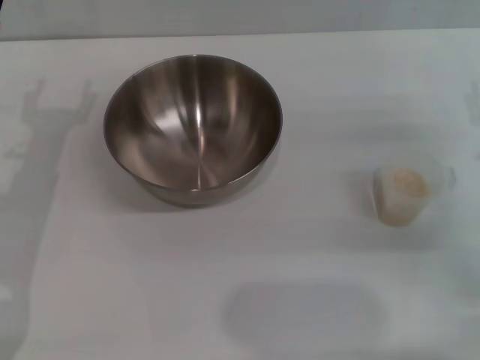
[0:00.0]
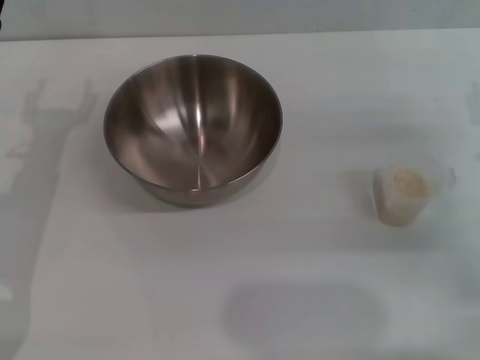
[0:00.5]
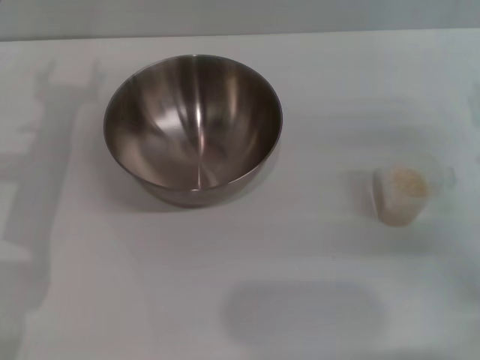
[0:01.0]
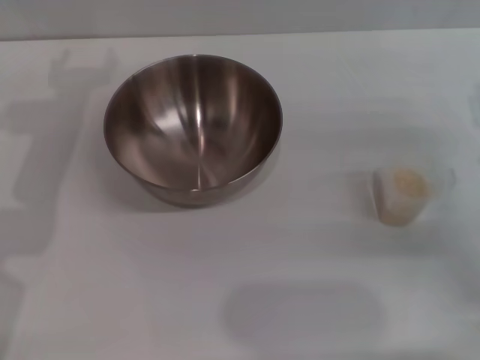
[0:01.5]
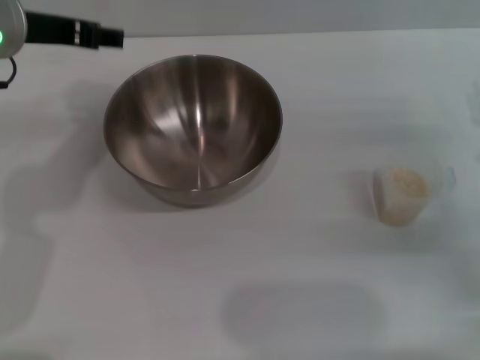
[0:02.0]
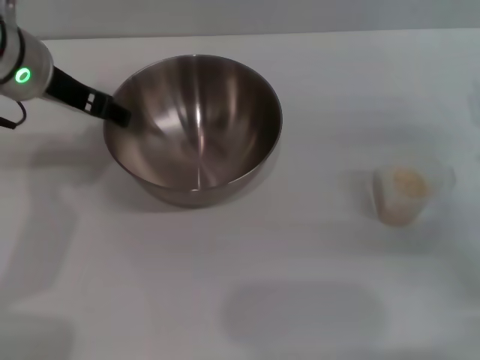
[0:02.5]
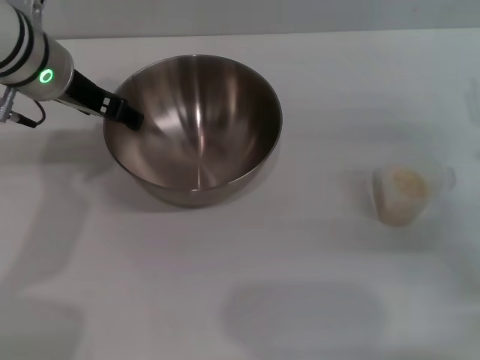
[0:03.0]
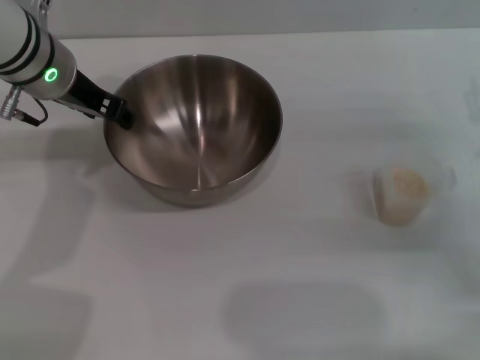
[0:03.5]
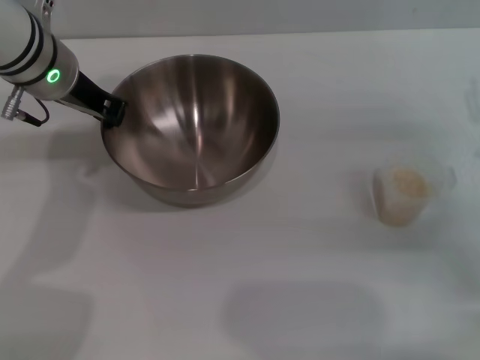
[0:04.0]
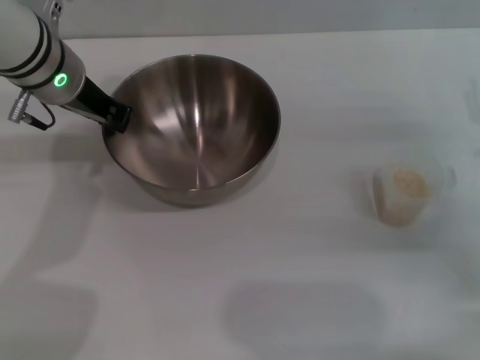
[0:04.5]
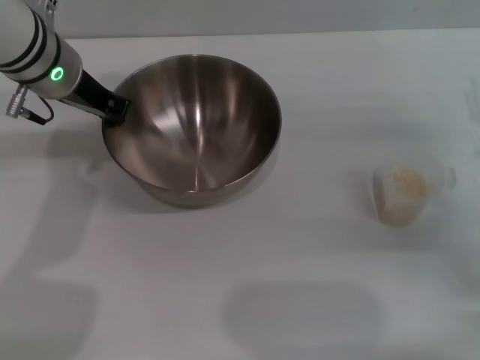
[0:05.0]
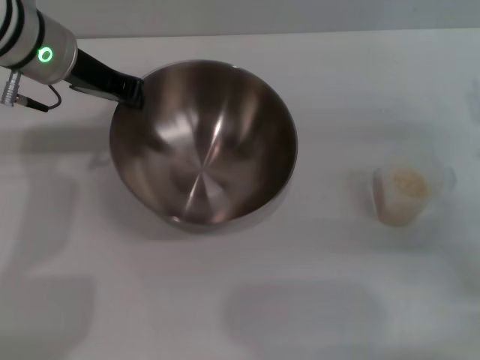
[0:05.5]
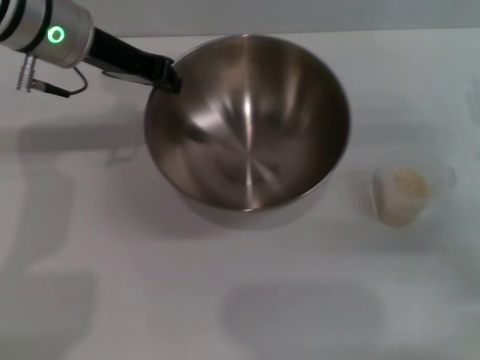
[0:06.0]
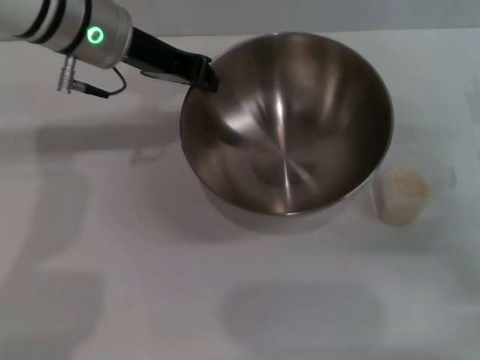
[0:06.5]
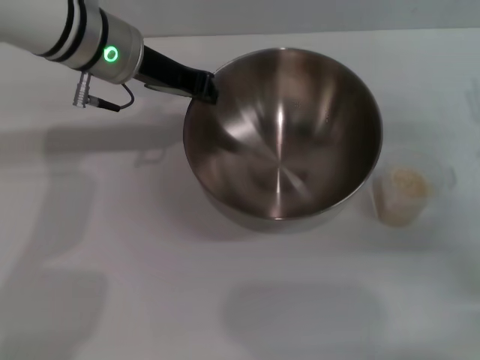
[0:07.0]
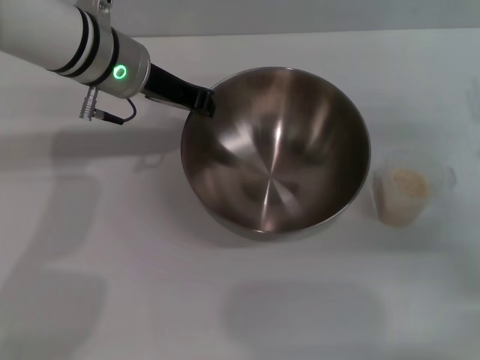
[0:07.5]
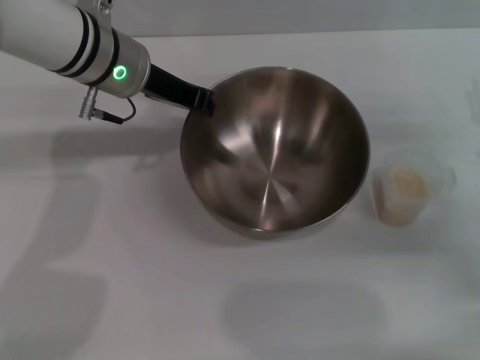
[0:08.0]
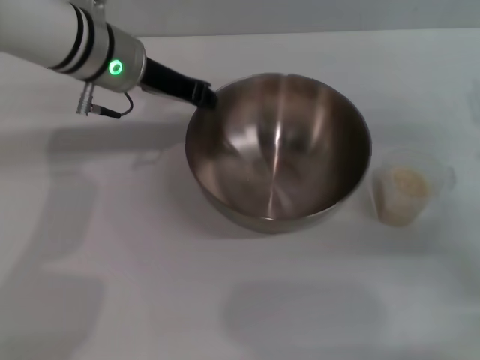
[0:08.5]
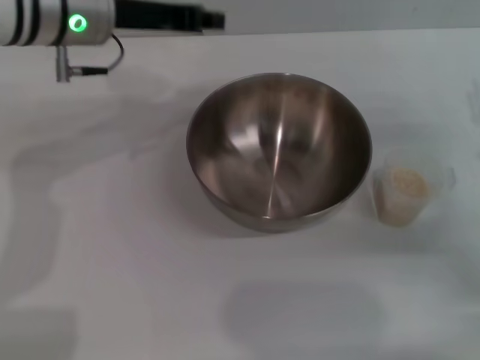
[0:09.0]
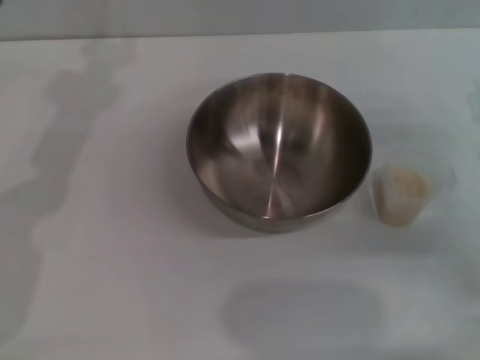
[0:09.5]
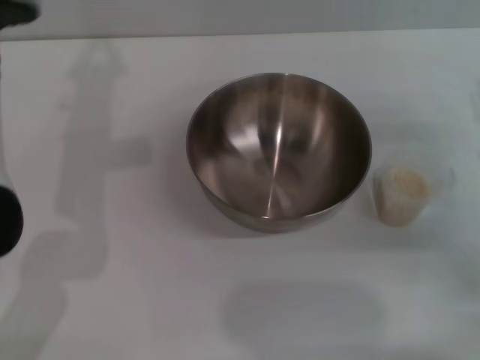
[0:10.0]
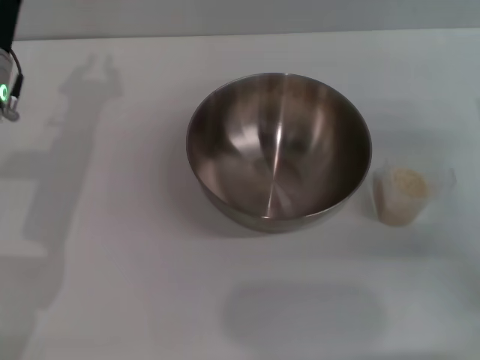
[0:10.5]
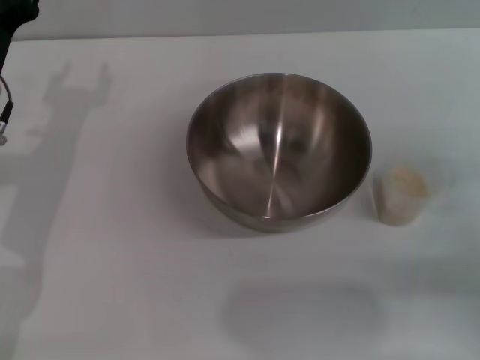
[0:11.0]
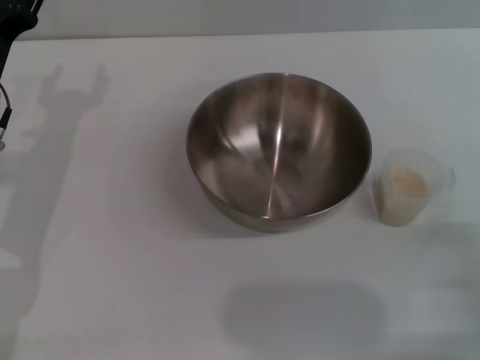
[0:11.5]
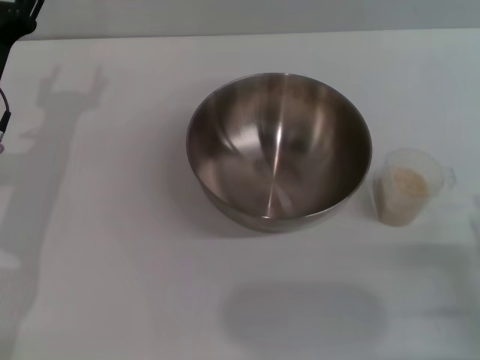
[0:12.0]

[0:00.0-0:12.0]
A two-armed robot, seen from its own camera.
Task of the whole recording: Place the bowl in the middle of the table with one hand and pour the rice from the grain cup into it with the other hand.
Step, 0:00.0 to 0:06.0: Pick up the bowl with the left gripper.
Step, 0:06.5 to 0:08.5: Place the bowl in the center of view with the left gripper.
0:00.0 to 0:02.0: The left gripper moves upward, forward and to the right, some 15 cm.
0:02.0 to 0:04.0: The left gripper changes place by some 5 cm, and closes.
0:06.0 to 0:08.0: The left gripper changes place by approximately 5 cm.
0:08.0 to 0:10.0: The left gripper heads to the left and backward, covering some 10 cm.
0:10.0 to 0:12.0: The right gripper moves backward and downward, approximately 20 cm; the left gripper shifts roughly 10 cm downward and to the left, and opens.

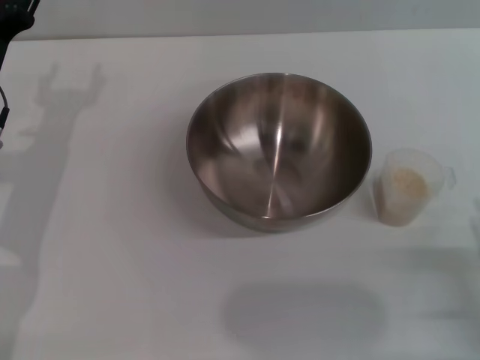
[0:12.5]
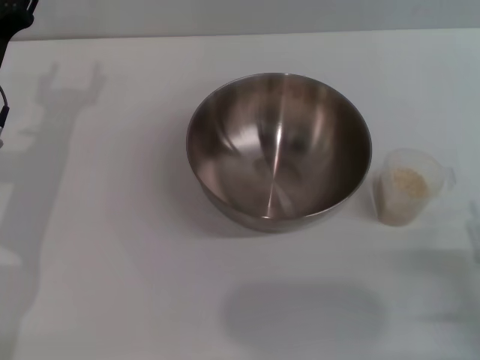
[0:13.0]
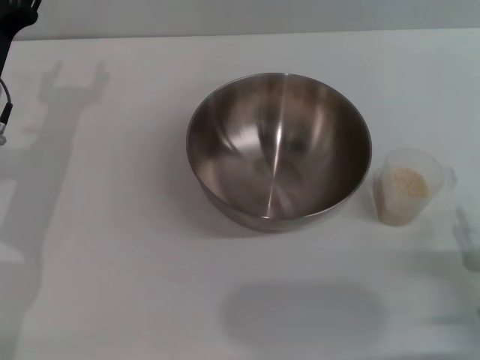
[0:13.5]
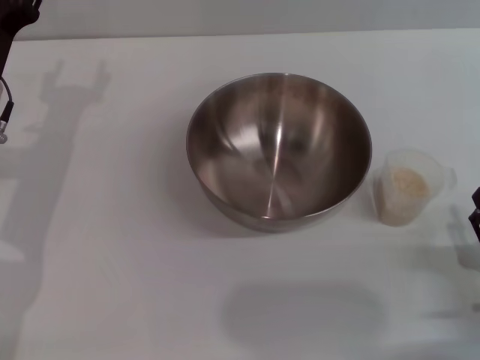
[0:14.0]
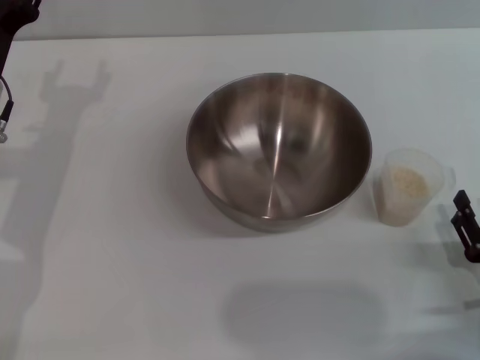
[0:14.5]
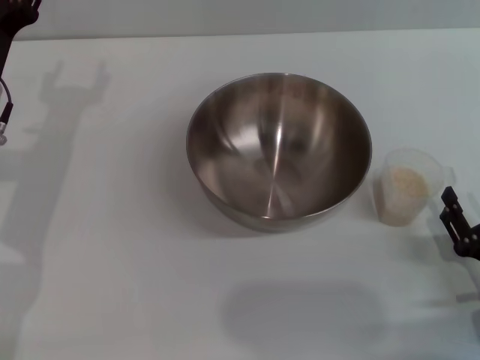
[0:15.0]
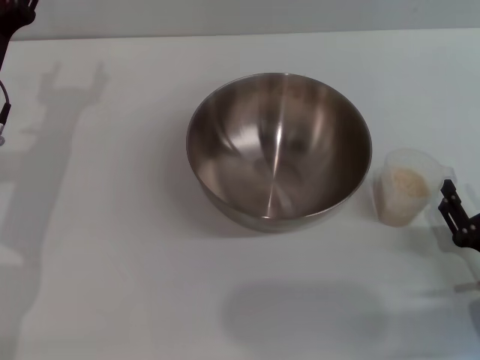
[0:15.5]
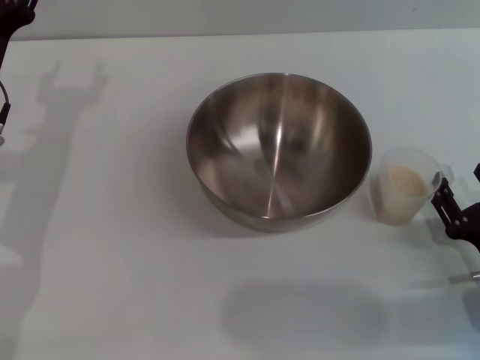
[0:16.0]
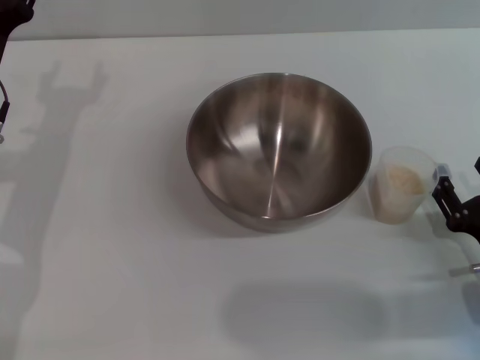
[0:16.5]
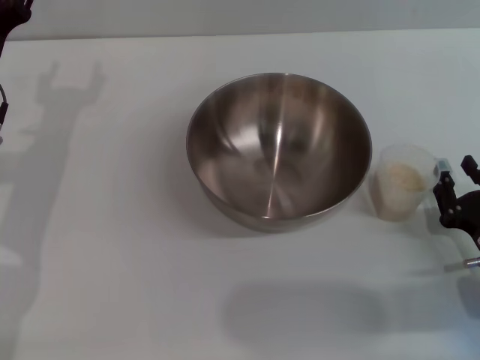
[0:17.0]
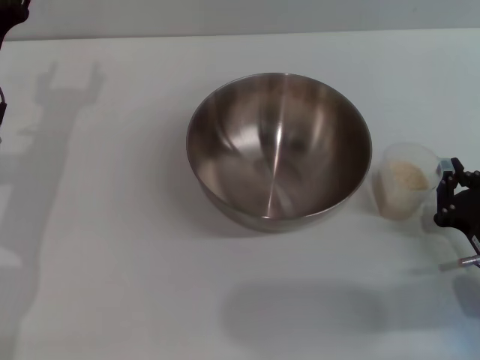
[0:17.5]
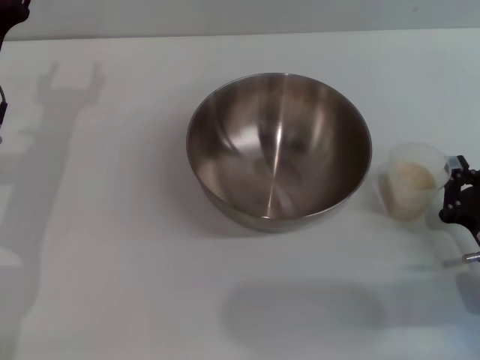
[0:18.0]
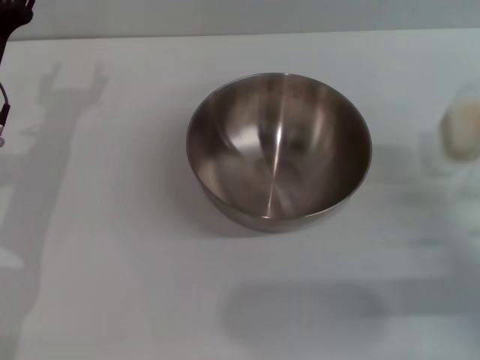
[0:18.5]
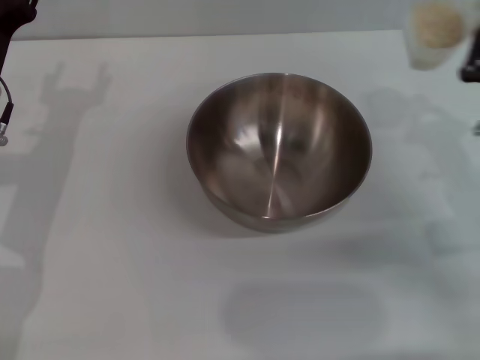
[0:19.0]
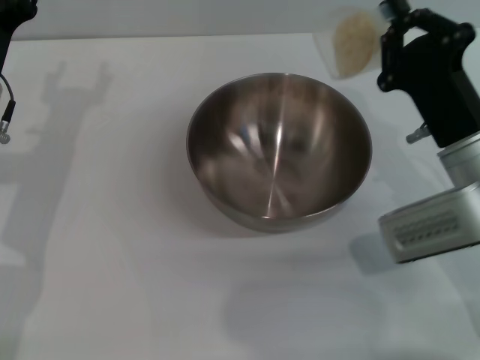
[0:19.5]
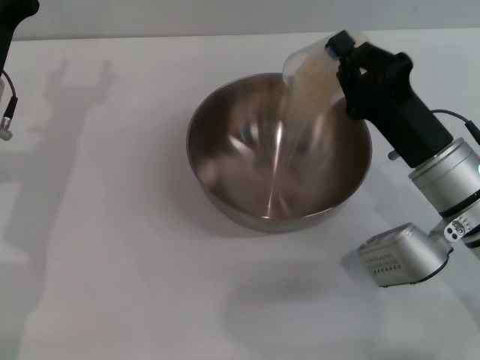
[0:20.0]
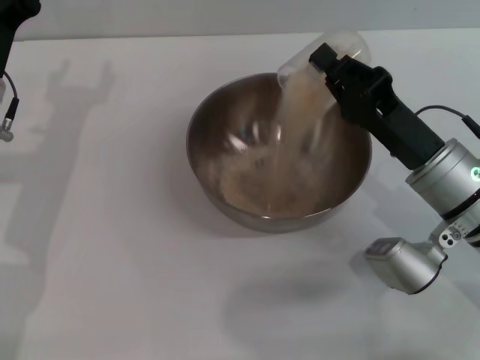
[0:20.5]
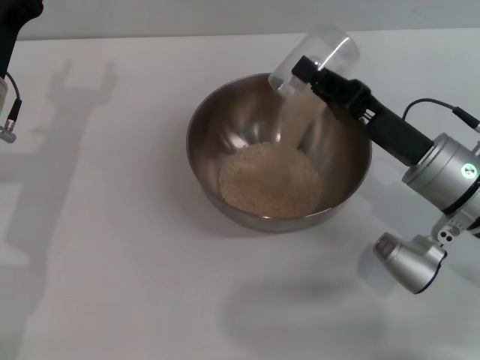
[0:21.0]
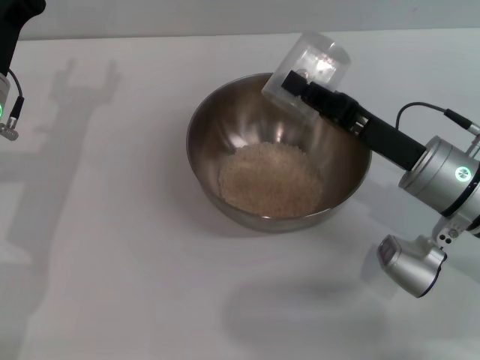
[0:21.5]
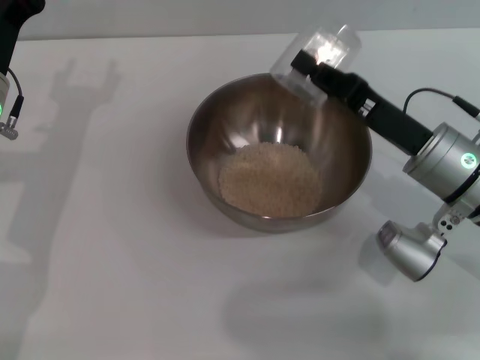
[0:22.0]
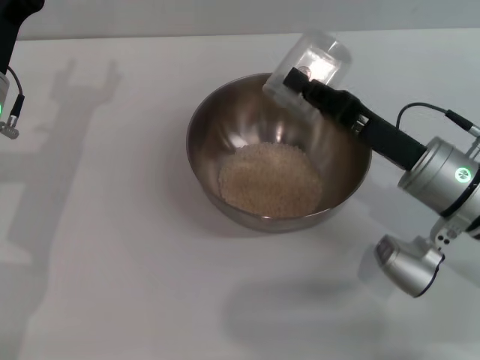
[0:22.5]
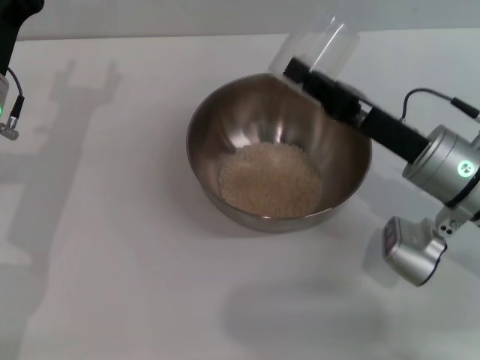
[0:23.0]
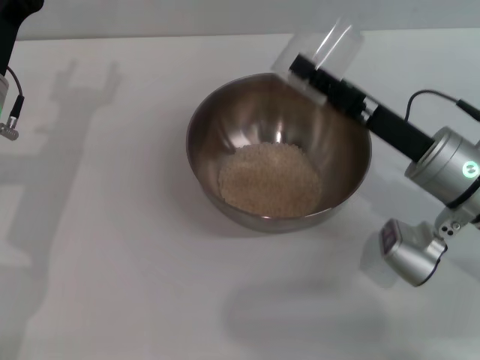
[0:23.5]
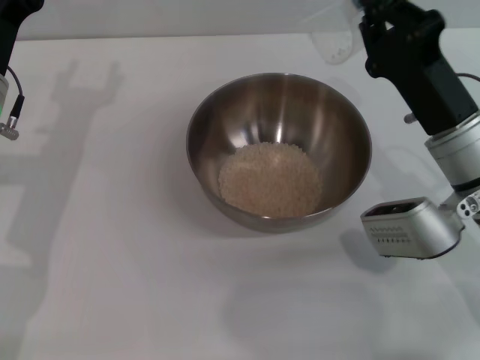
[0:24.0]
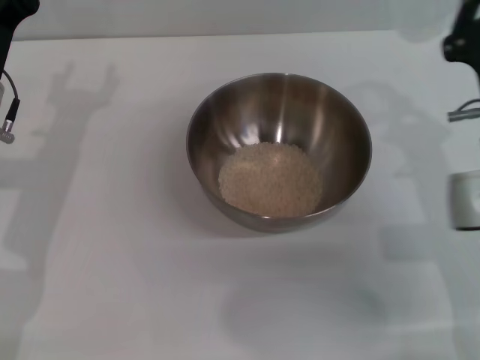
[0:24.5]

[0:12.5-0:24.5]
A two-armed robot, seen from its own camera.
Task of the whole recording: Place the bowl in the middle of the table with one hand and pour the rice from the grain cup into it with the other hand.
Step, 0:12.5 to 0:18.5: Pick up the cup with rice in it with the right gripper.
Step, 0:19.0 to 0:23.5: Pour the rice from the cup into the bowl with the right gripper.
0:12.5 to 0:14.5: The grippers move only a little.
0:14.5 to 0:16.5: The grippers make only small movements.
0:16.5 to 0:18.5: The right gripper closes its fingers.
0:18.5 to 0:20.5: The right gripper is displaced to the left and forward by some 15 cm.
0:20.5 to 0:22.5: The grippers stay close to where they were, moving slightly.

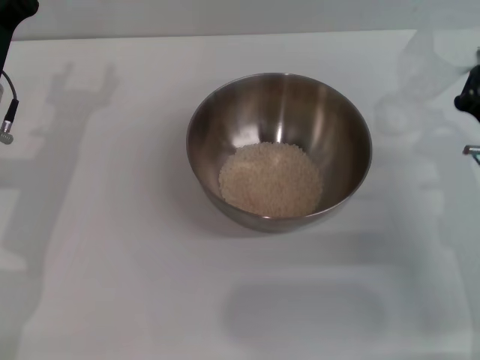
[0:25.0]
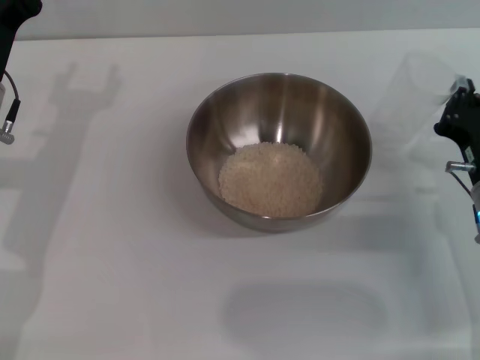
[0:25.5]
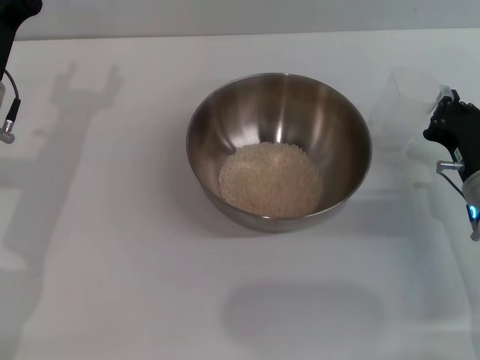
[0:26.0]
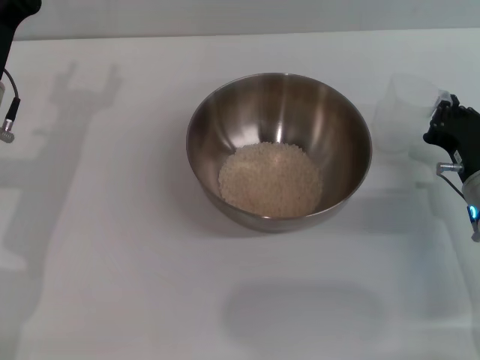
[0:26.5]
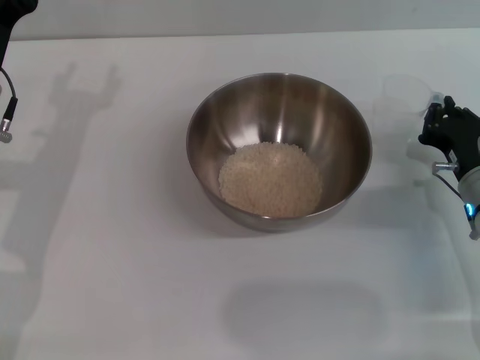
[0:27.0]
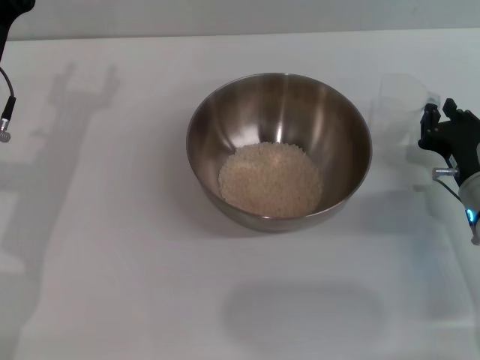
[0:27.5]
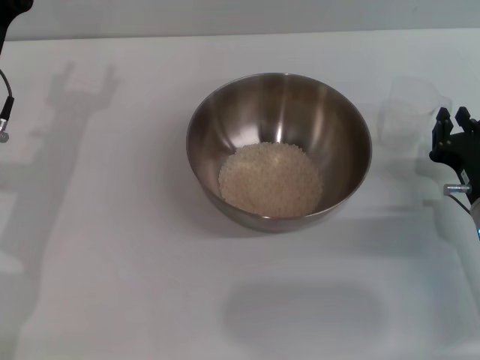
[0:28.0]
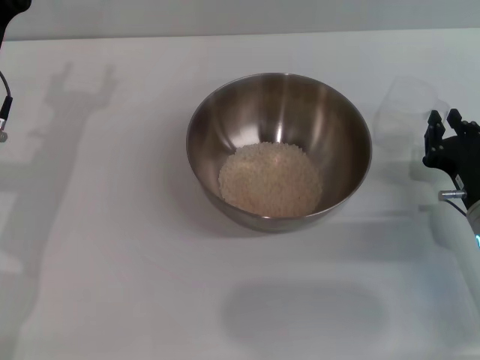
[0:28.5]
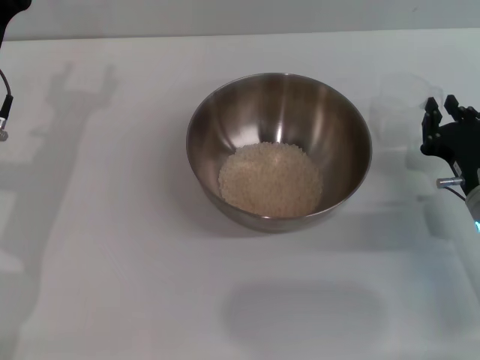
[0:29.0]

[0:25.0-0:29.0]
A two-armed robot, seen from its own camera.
Task of the whole recording: Place the bowl in the middle of the table with one hand and pour the rice from the grain cup into it with the other hand.
0:27.0 to 0:29.0: The grippers move only a little.
